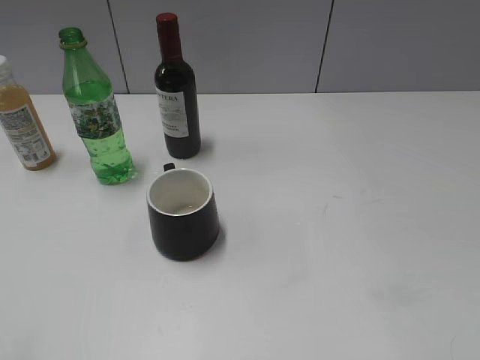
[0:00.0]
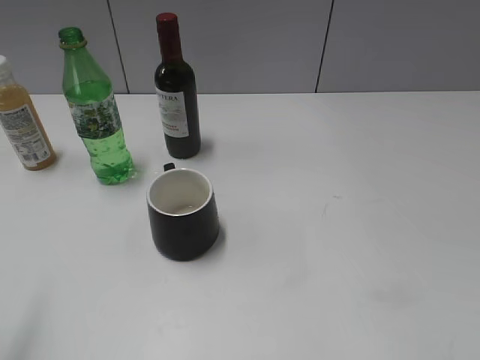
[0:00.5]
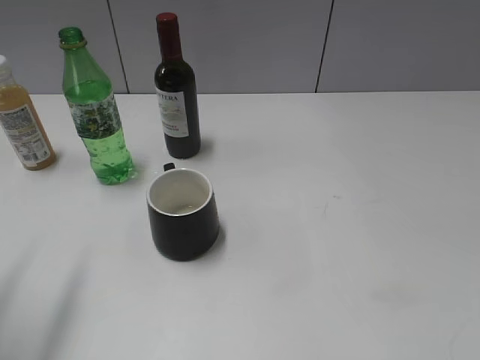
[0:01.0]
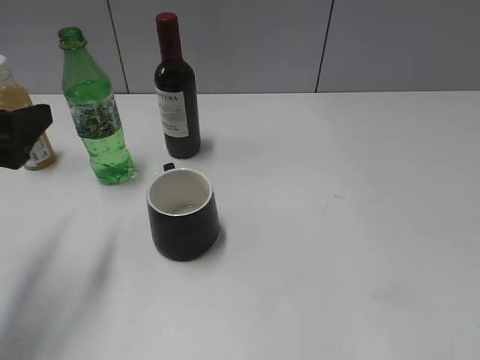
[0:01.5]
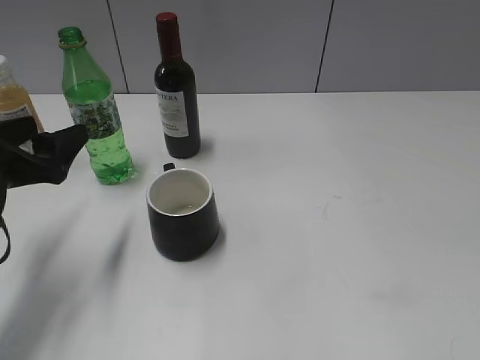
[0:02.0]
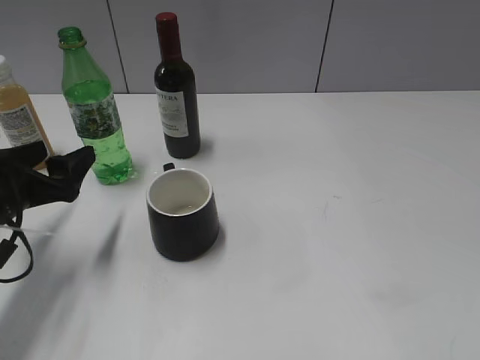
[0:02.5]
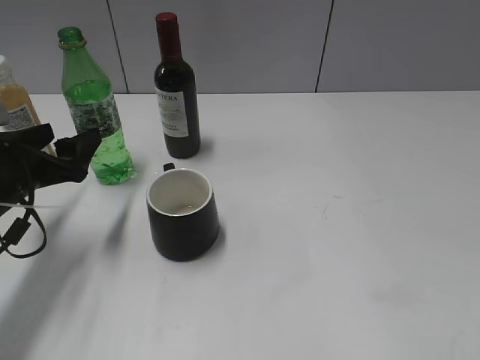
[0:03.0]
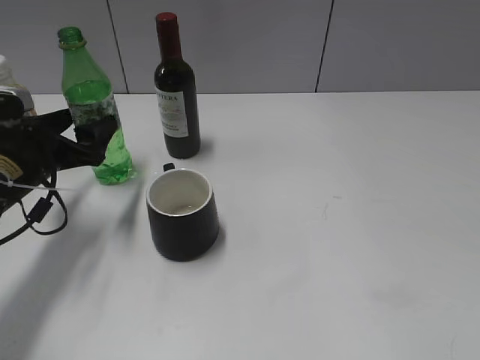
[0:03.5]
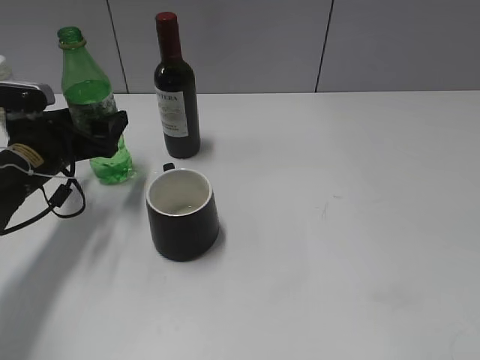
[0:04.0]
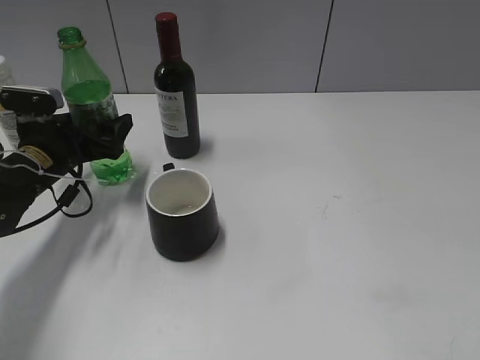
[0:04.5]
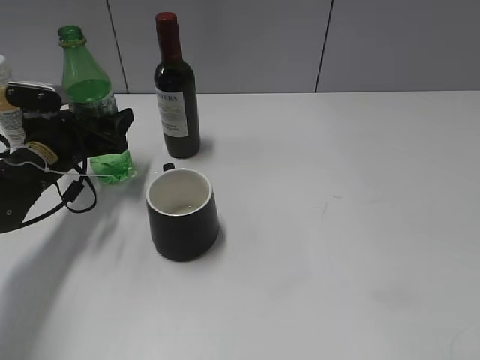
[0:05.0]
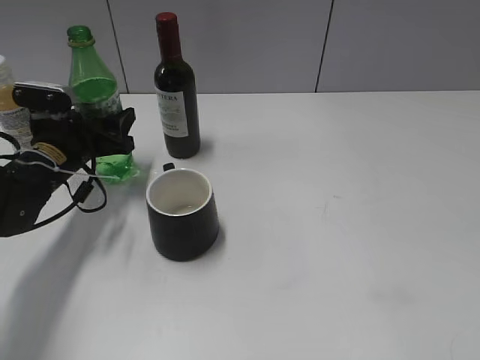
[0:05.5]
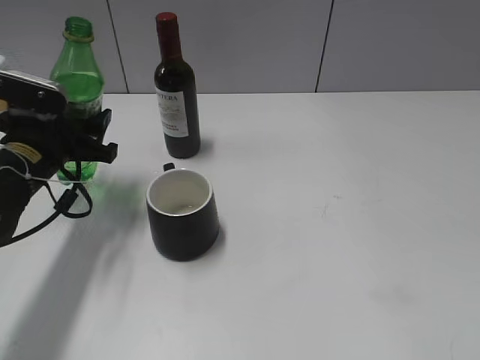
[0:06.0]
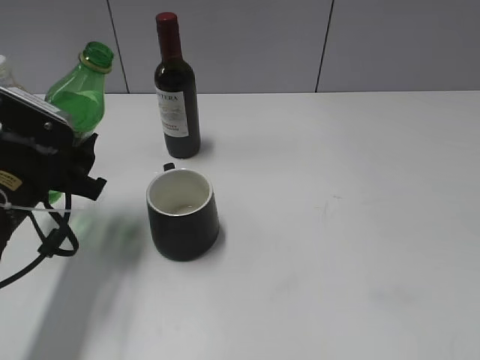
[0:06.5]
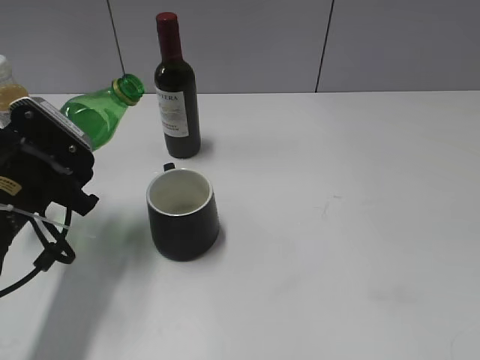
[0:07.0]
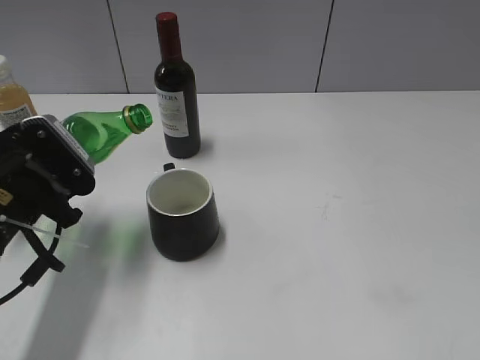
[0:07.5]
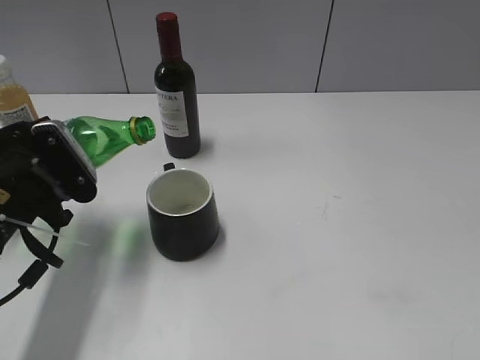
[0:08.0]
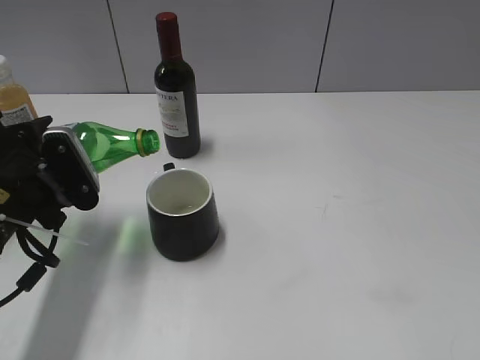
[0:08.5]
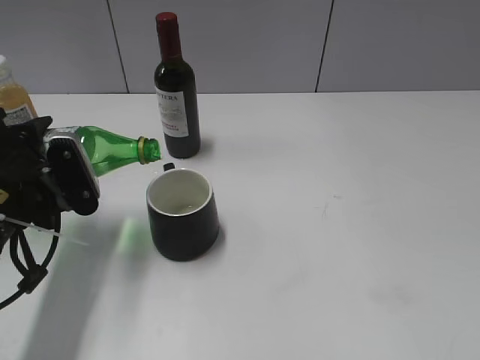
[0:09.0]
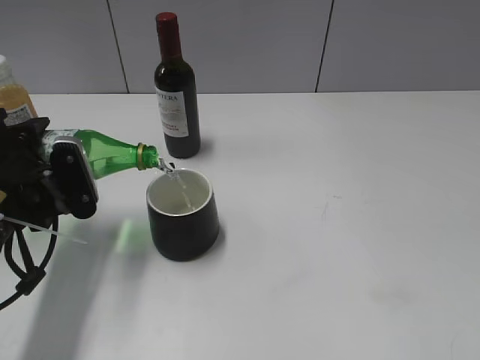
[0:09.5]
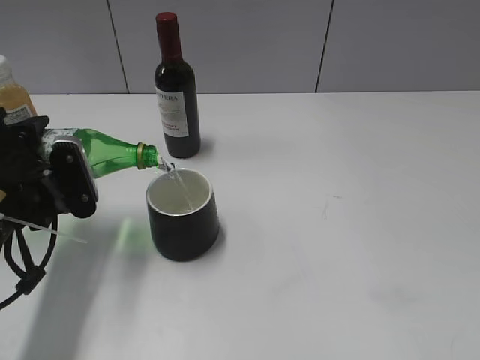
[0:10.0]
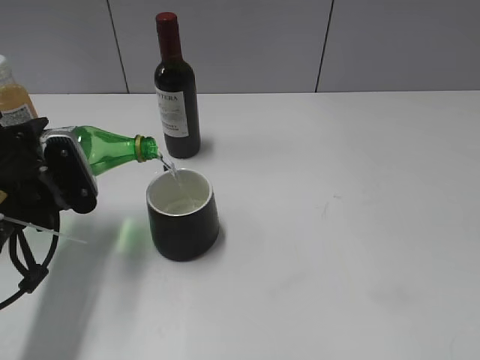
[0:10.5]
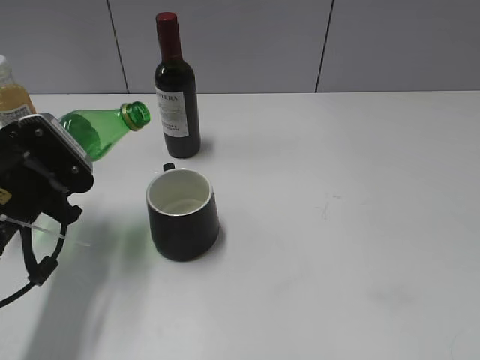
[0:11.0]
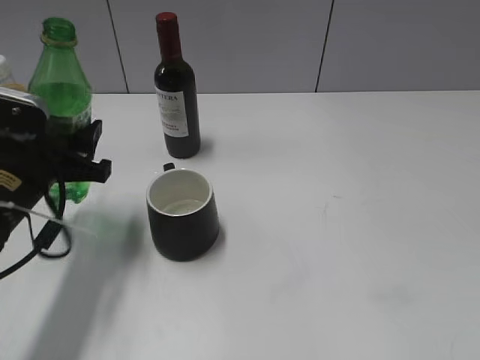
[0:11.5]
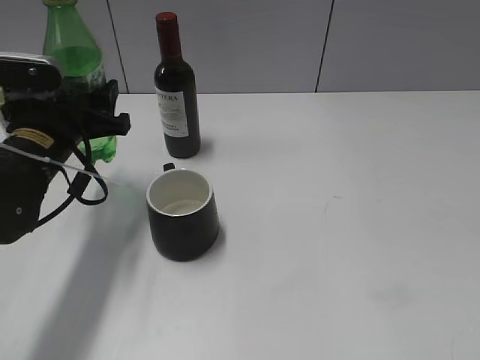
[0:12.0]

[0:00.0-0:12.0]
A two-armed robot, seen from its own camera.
Step, 0:00.0 to 0:05.0: Grasp the bottle with sprite with left gripper.
Step, 0:05.5 to 0:10.5: Pour the sprite from bottle to cup with left gripper.
0:00.0 to 0:02.0: The left gripper heads forward and downward, covering approximately 25 cm.
0:02.0 to 0:04.0: The left gripper heads forward and downward, covering roughly 10 cm.
0:04.0 to 0:06.0: The left gripper closes up.
0:06.0 to 0:08.0: The left gripper is displaced backward by approximately 10 cm.
0:08.0 to 0:10.0: The grippers stay close to where they were, moving slightly.
0:10.0 to 0:12.0: The left gripper shifts roughly 5 cm forward.

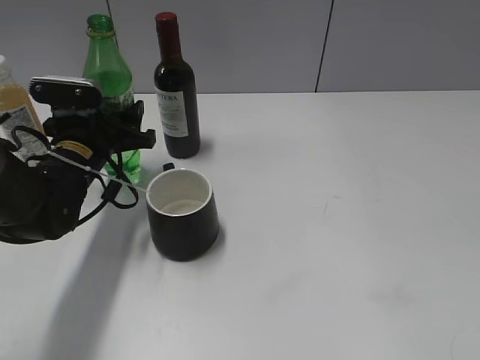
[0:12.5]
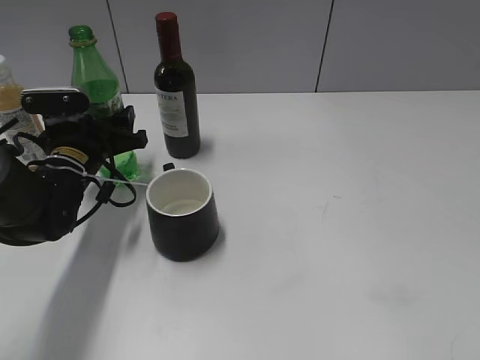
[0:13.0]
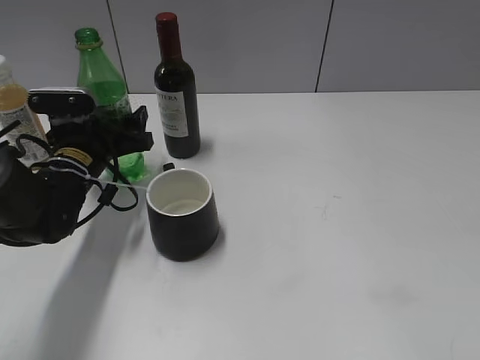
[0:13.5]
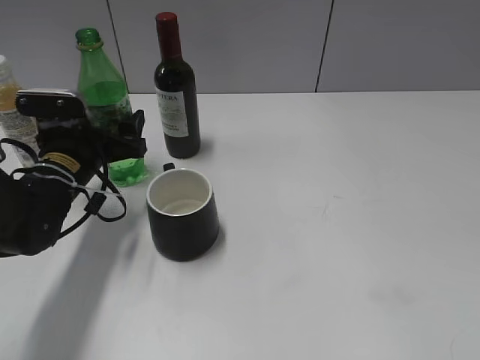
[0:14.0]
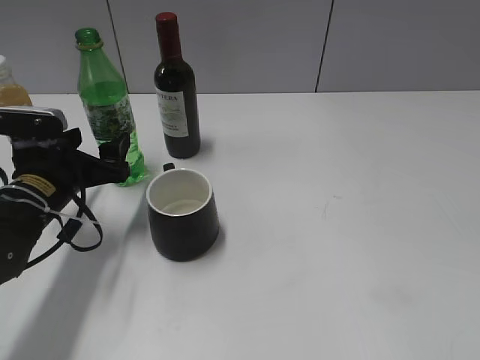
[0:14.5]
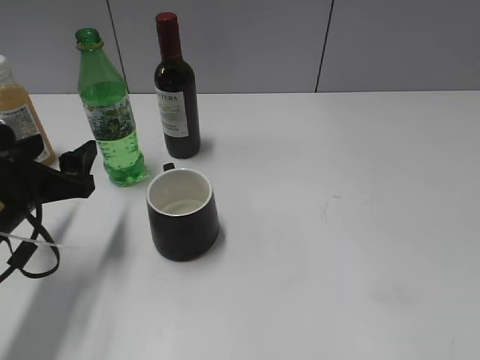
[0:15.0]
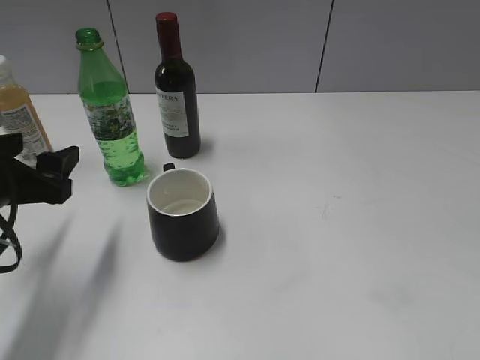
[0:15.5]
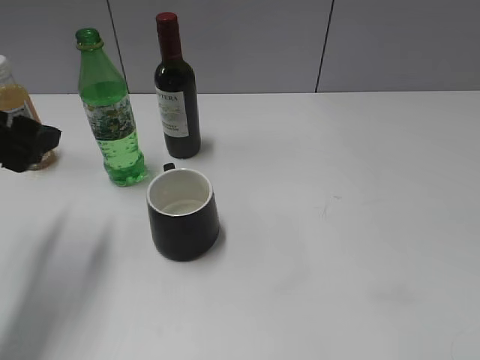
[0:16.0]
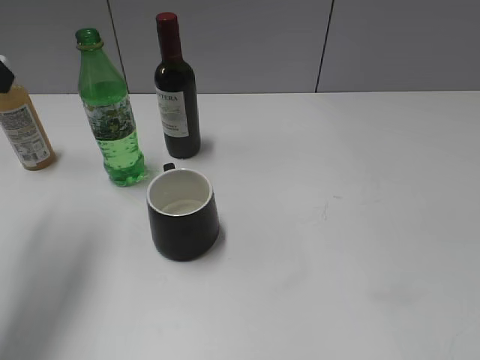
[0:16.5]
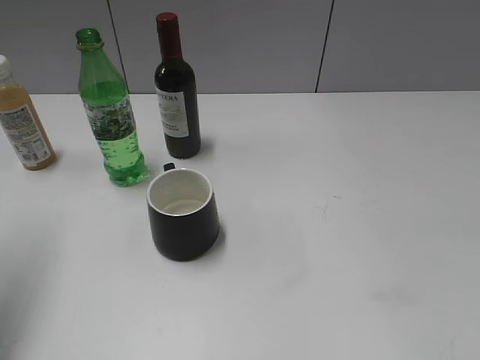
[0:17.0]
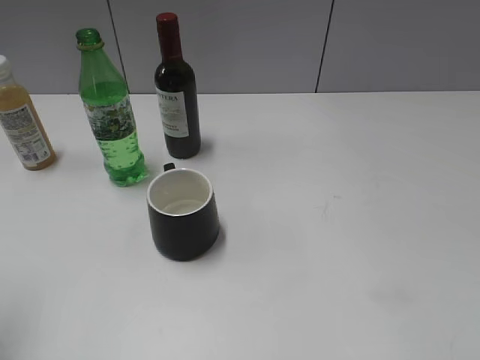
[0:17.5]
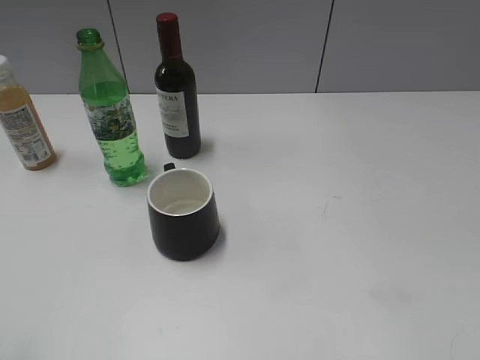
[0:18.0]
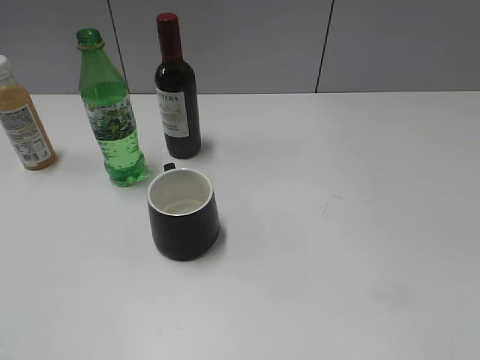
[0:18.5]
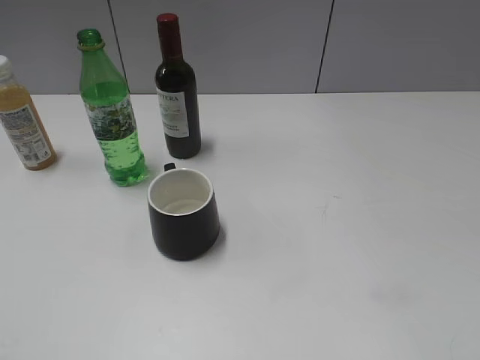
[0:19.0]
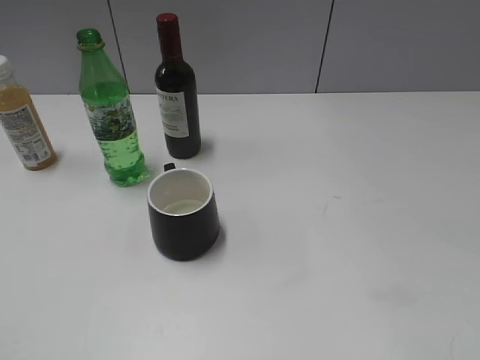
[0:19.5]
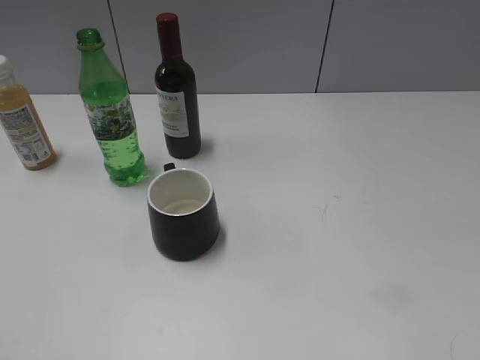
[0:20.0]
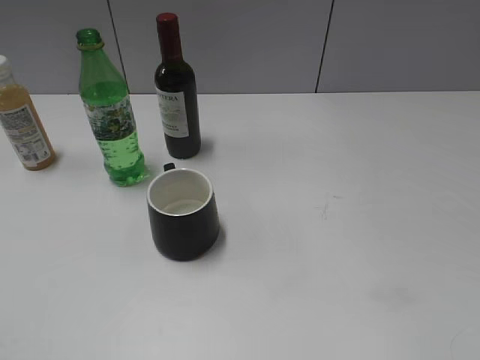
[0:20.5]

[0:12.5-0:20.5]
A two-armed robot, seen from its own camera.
0:12.5 to 0:14.5: The left gripper shifts by approximately 5 cm, and opens its fingers.
0:14.5 to 0:16.5: The left gripper moves upward, approximately 20 cm.
0:16.5 to 0:18.5: The left gripper goes some 25 cm backward.
